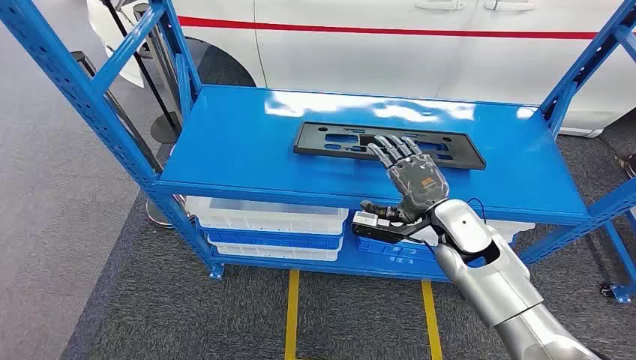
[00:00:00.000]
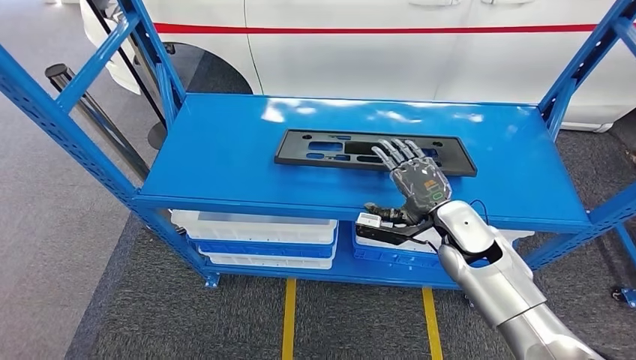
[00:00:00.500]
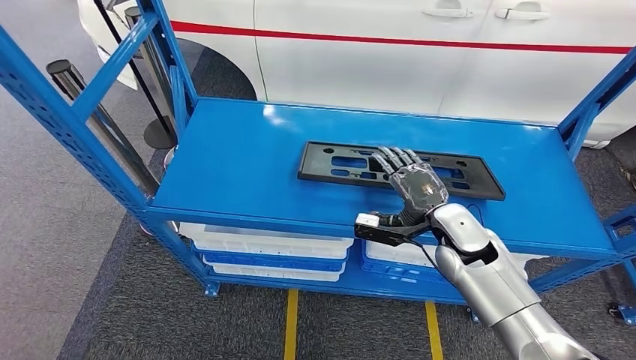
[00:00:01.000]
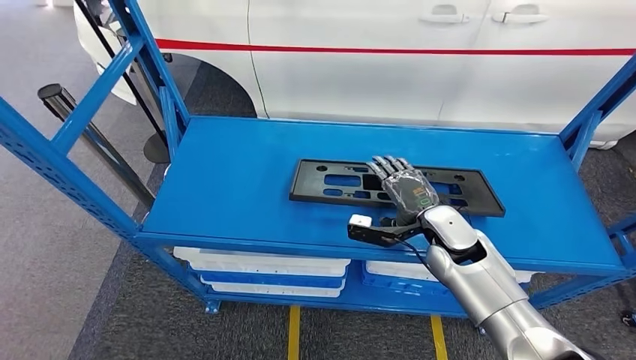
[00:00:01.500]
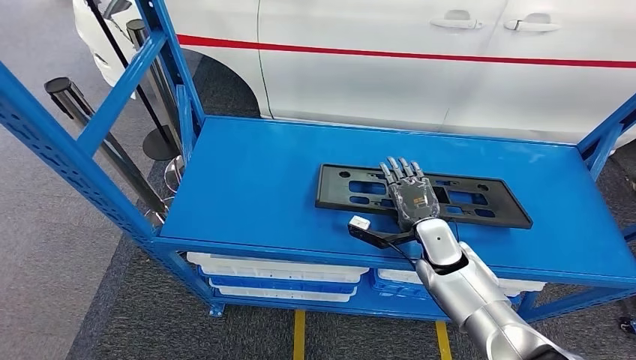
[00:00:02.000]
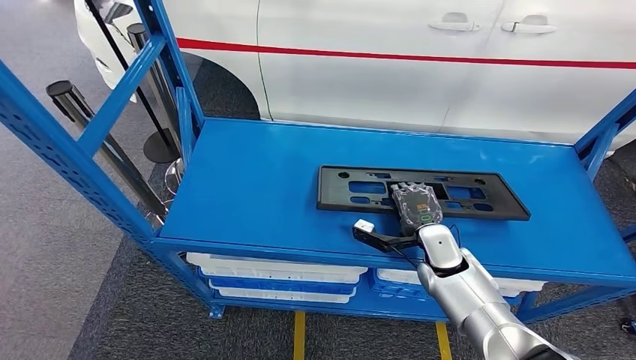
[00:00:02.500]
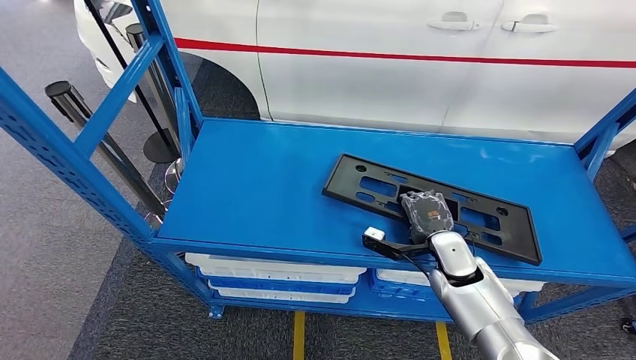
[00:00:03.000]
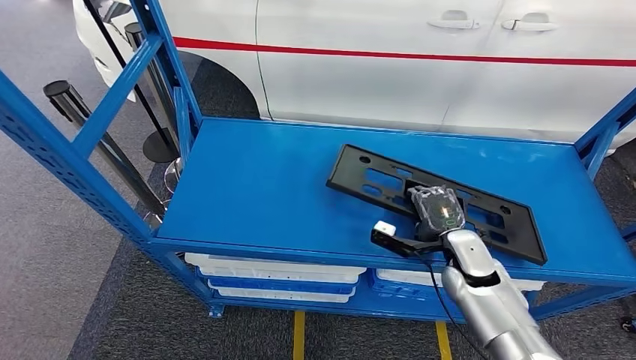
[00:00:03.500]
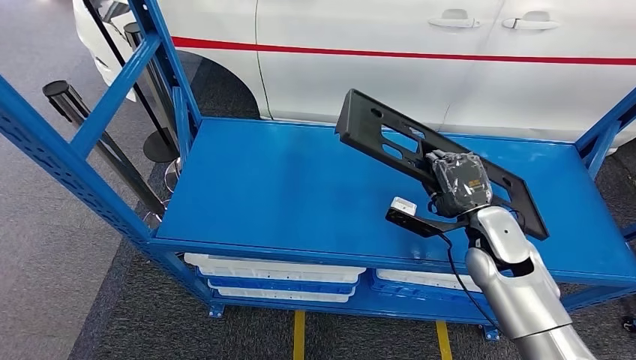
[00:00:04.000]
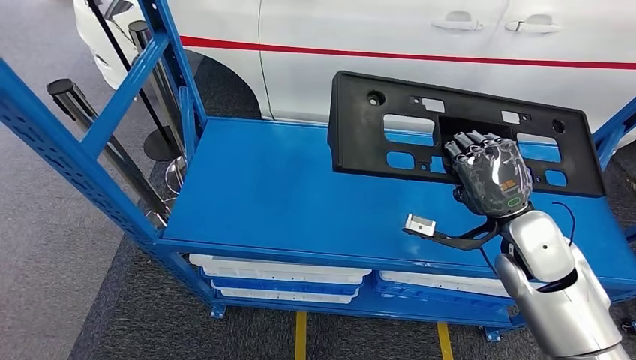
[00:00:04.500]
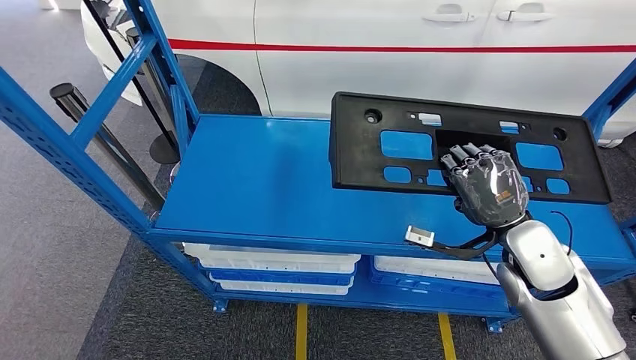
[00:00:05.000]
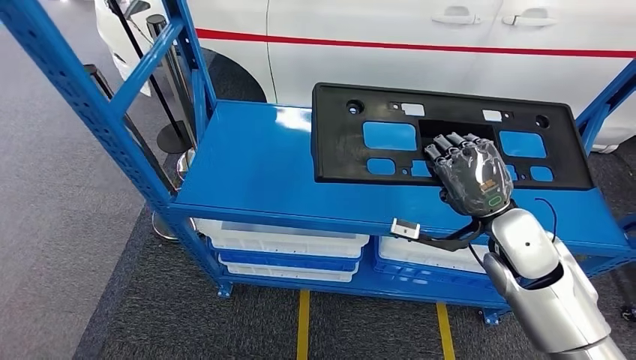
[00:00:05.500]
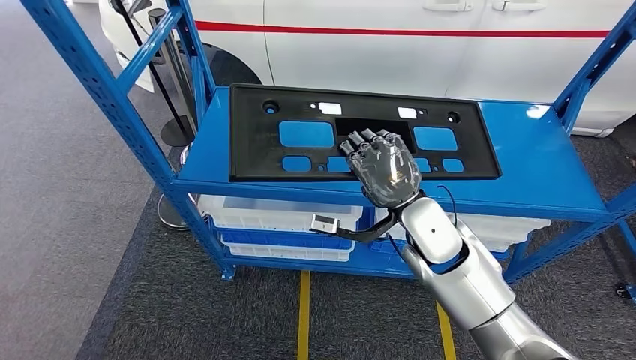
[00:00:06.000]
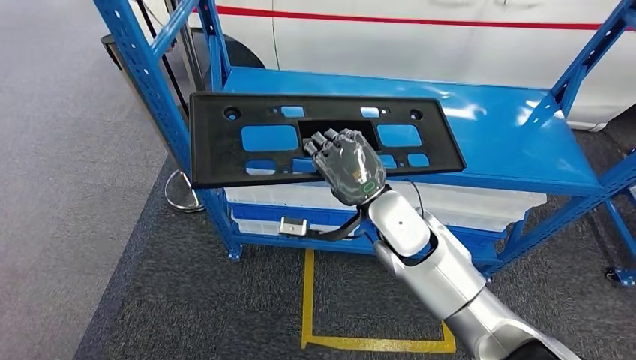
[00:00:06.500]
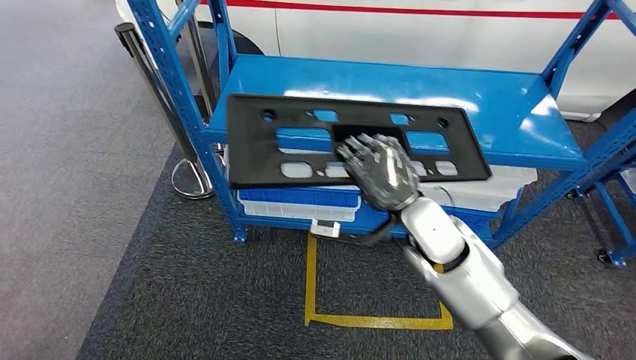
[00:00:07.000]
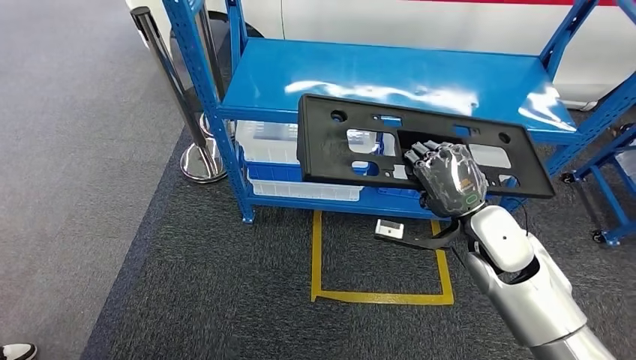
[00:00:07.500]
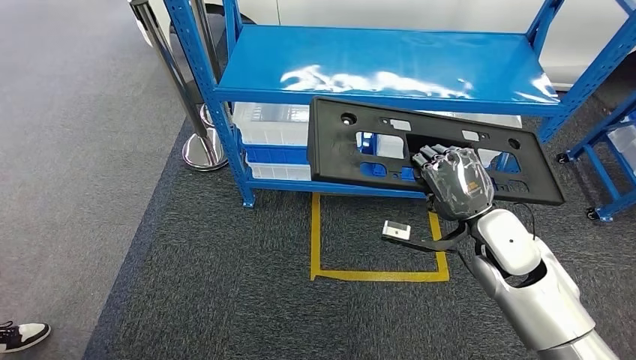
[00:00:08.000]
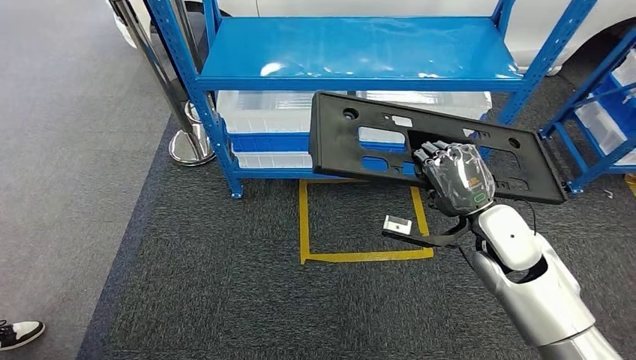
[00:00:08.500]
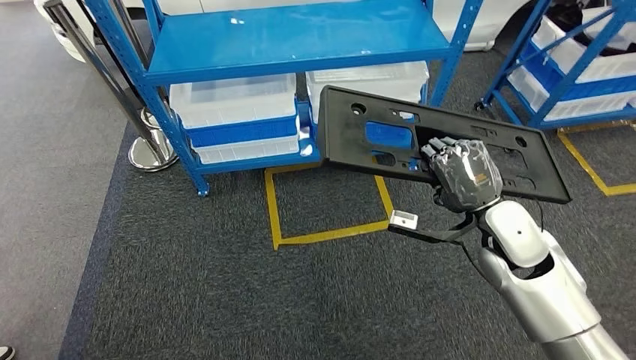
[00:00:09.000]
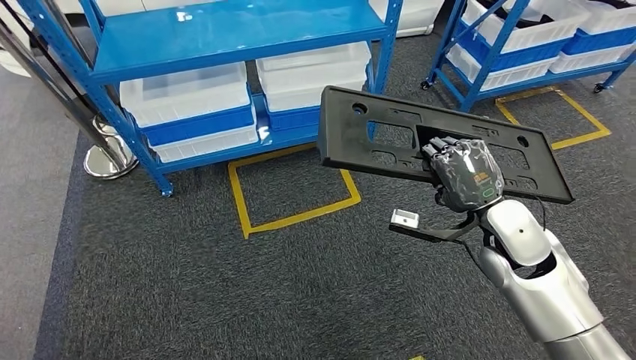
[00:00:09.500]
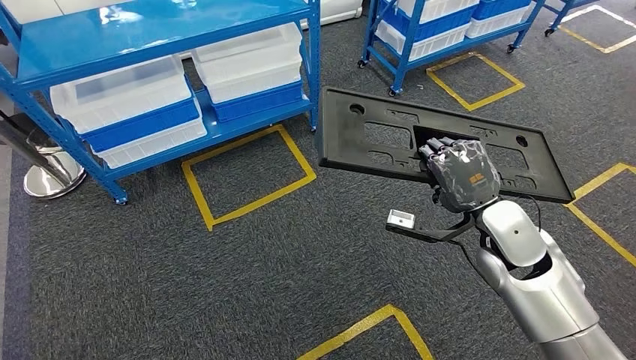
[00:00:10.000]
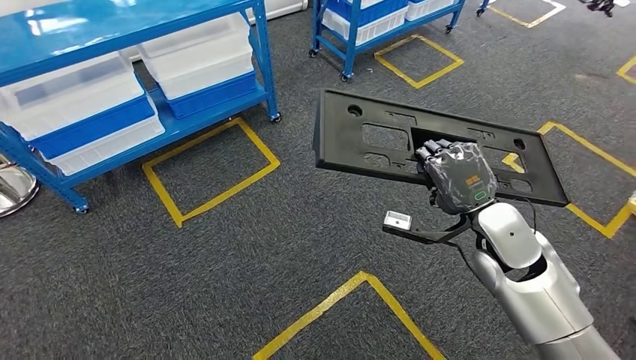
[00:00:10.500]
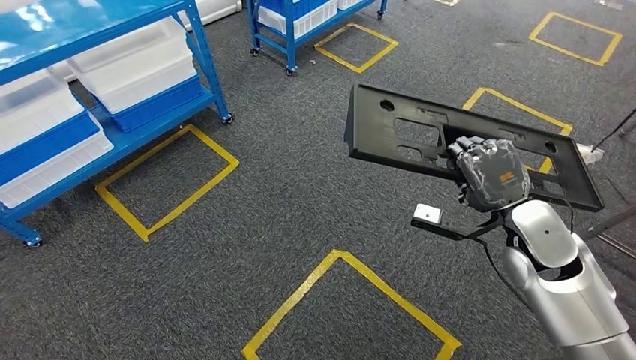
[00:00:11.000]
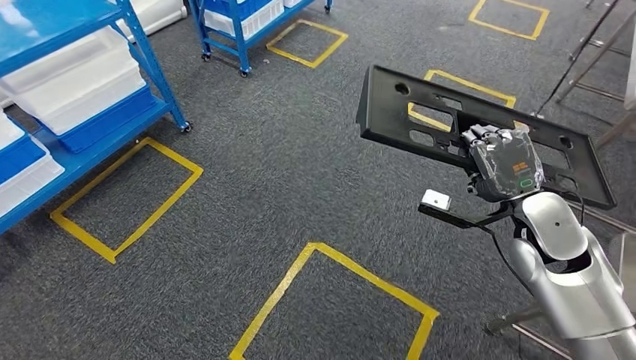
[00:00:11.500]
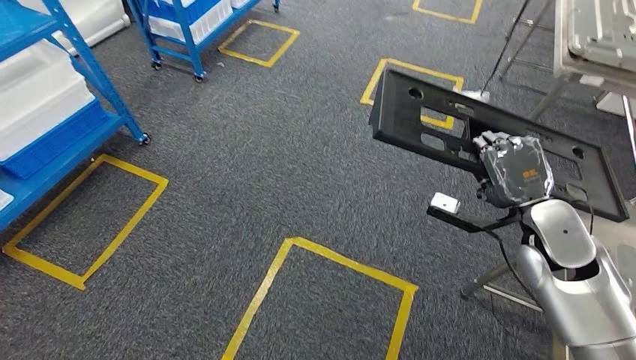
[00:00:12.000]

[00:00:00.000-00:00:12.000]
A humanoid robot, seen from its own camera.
Step, 00:00:00.000 to 00:00:05.000: Pick up the large material from the shelf.

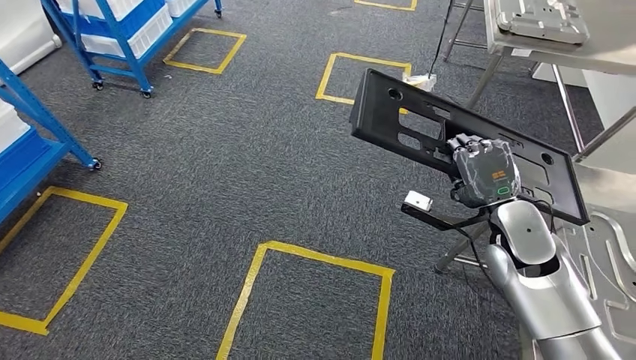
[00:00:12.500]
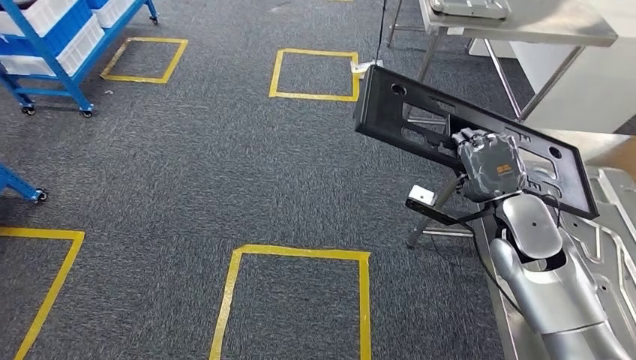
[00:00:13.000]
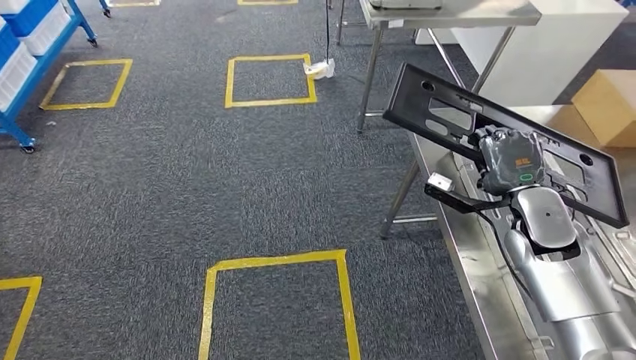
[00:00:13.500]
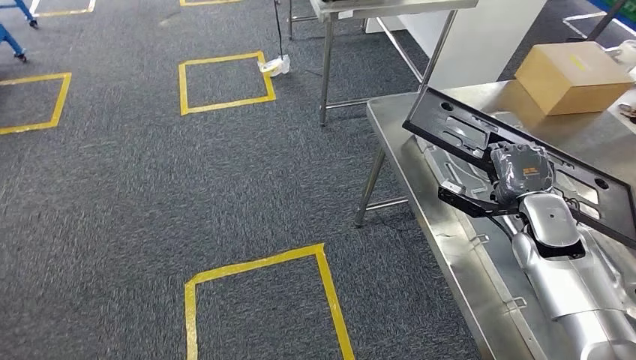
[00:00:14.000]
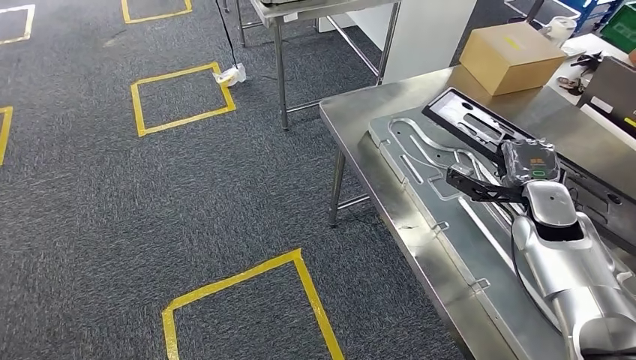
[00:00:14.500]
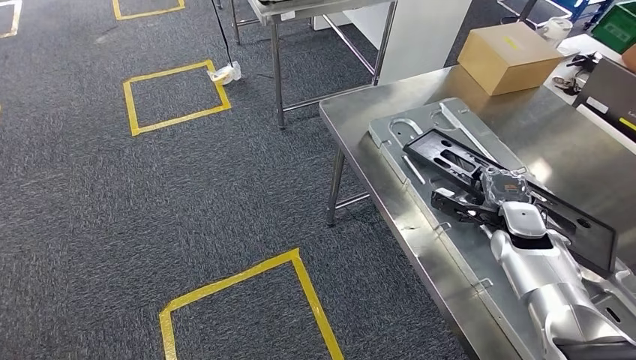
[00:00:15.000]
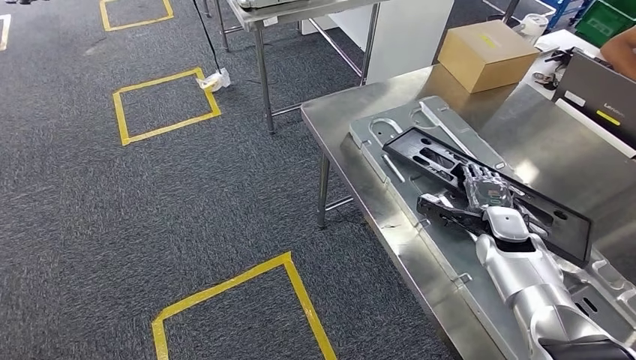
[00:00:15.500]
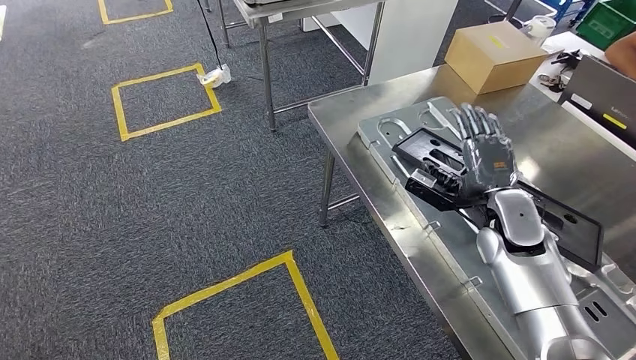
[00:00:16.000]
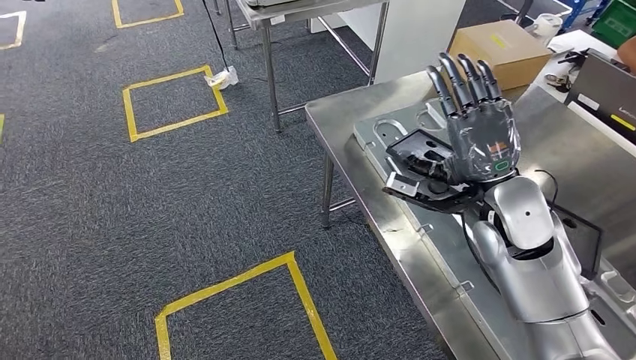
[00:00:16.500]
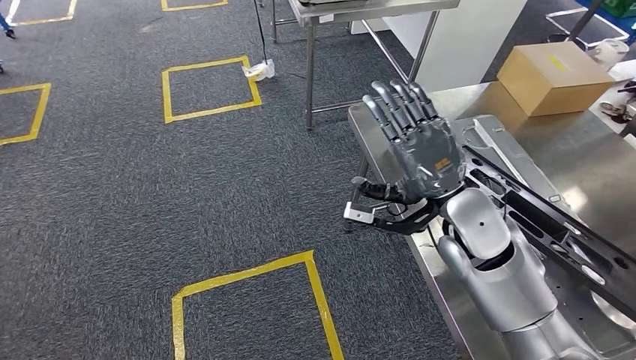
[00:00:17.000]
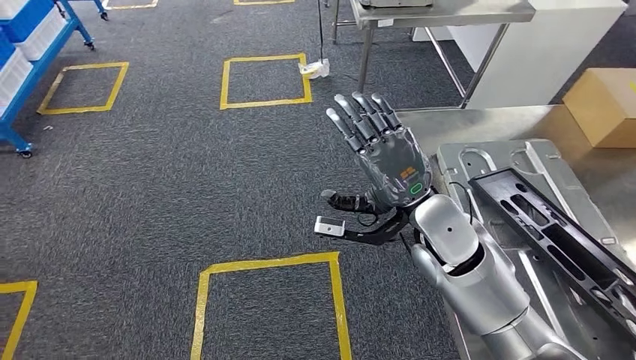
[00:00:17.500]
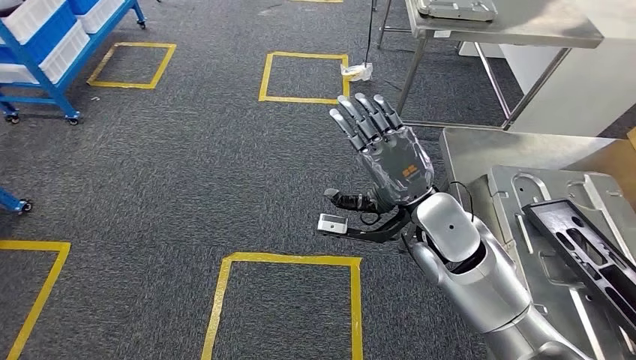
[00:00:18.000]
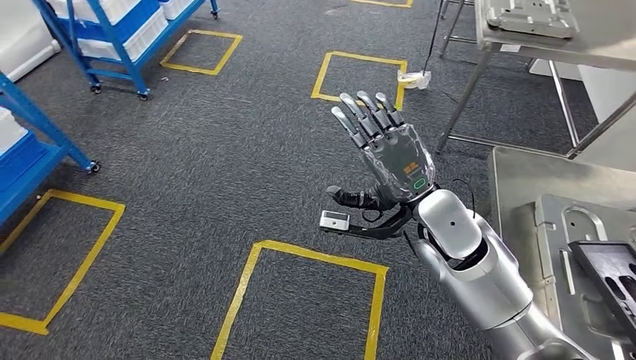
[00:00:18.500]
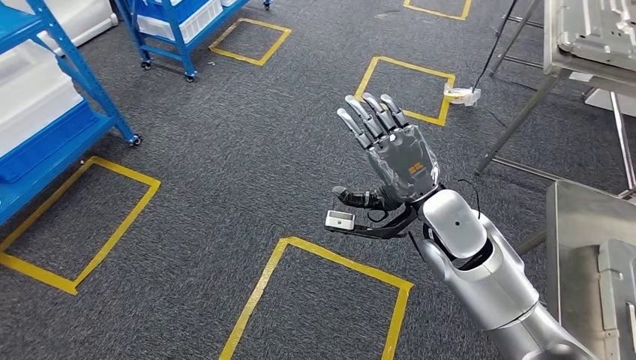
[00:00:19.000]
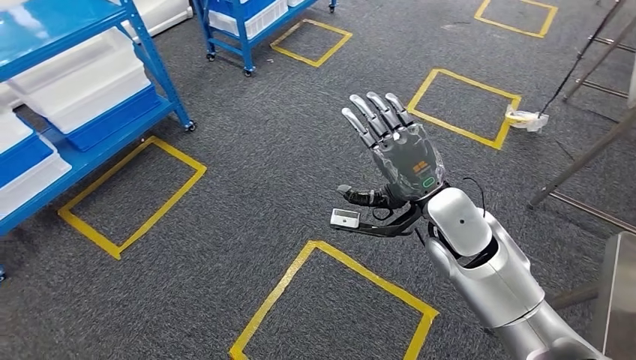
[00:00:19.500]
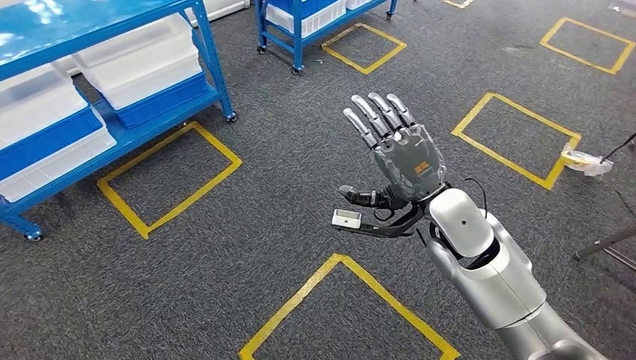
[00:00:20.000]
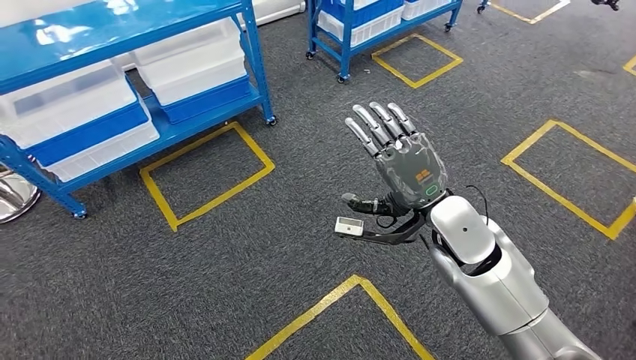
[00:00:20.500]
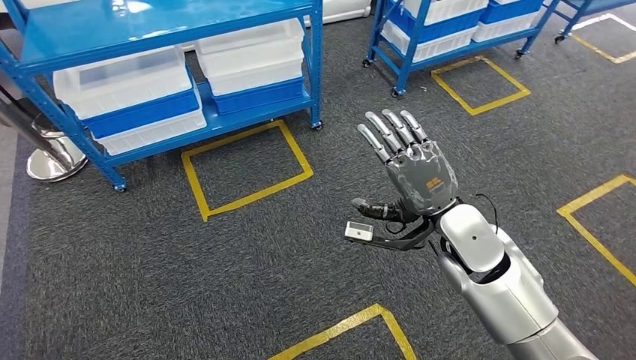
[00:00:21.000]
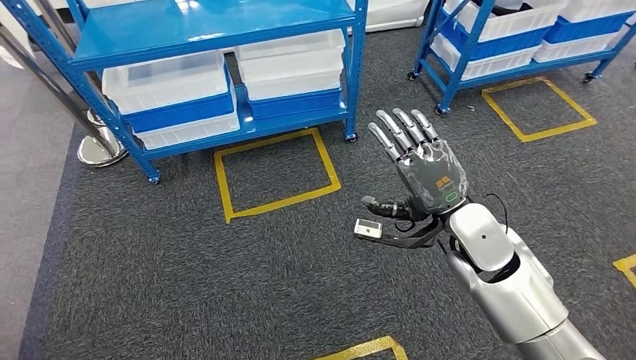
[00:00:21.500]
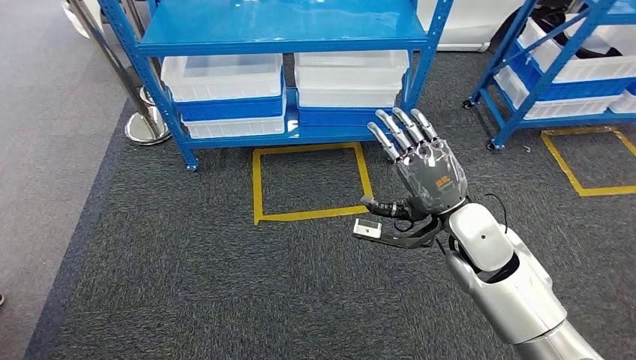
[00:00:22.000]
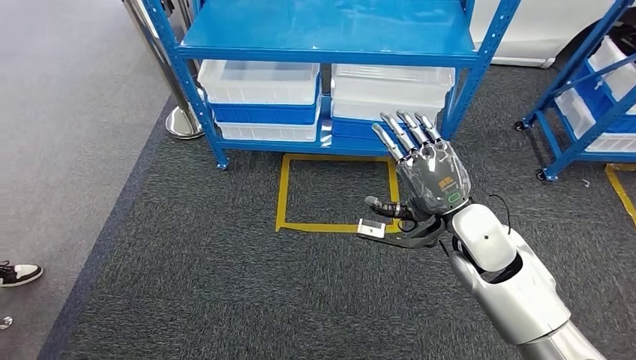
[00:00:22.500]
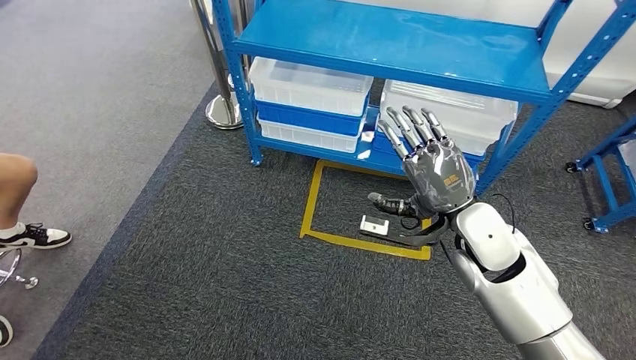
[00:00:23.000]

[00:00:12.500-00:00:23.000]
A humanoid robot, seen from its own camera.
Step, 00:00:12.500 to 00:00:14.500: Move the large material to the workbench.
Step, 00:00:15.000 to 00:00:18.000: Insert the large material into the corresponding slot on the workbench.
